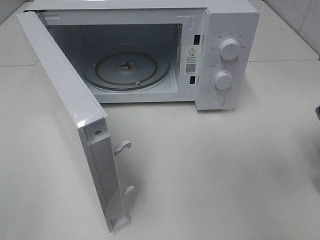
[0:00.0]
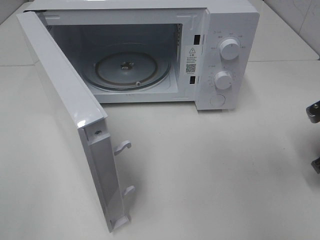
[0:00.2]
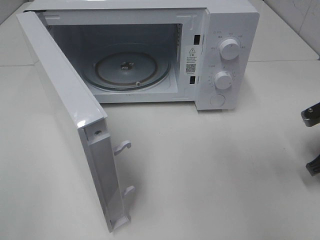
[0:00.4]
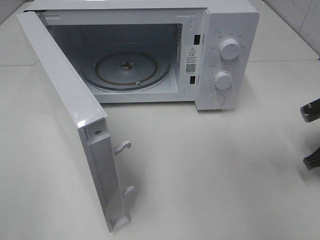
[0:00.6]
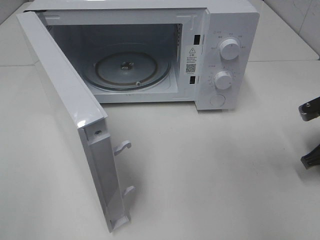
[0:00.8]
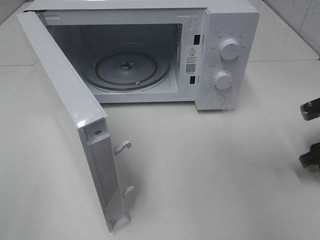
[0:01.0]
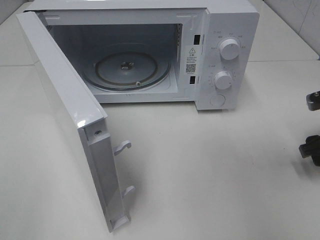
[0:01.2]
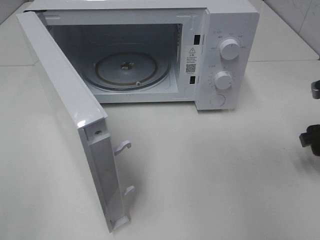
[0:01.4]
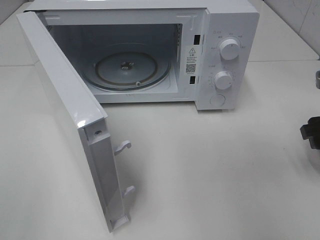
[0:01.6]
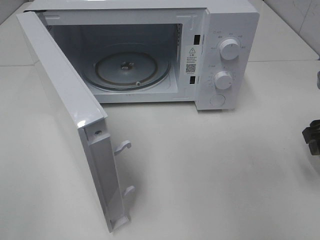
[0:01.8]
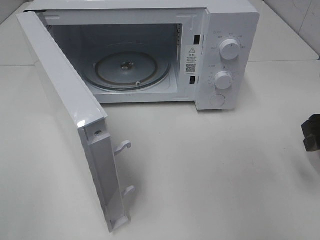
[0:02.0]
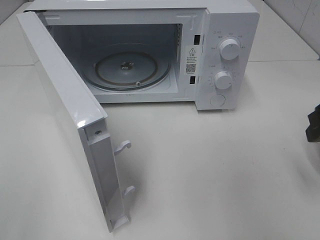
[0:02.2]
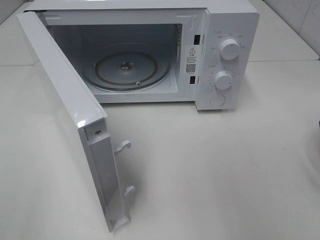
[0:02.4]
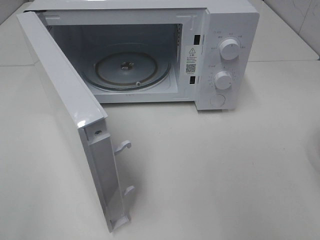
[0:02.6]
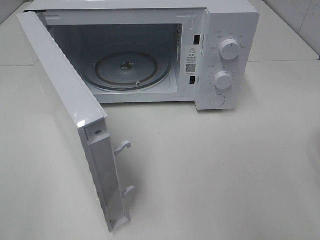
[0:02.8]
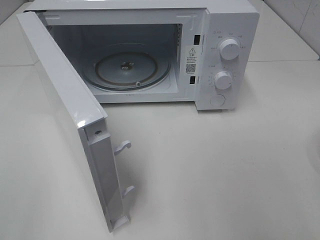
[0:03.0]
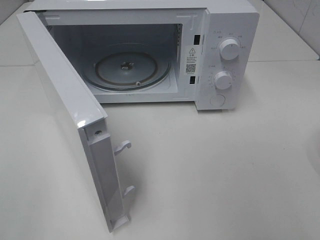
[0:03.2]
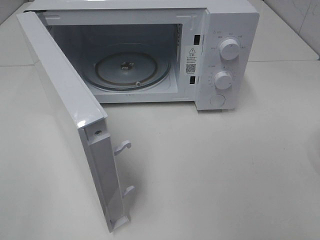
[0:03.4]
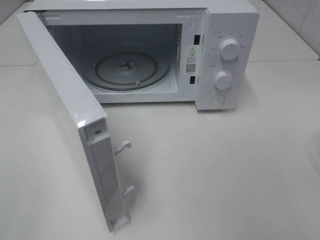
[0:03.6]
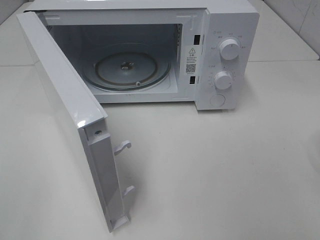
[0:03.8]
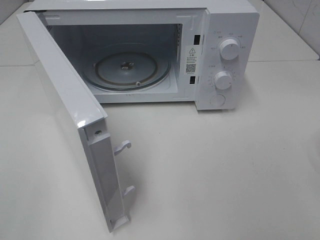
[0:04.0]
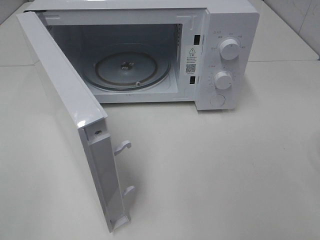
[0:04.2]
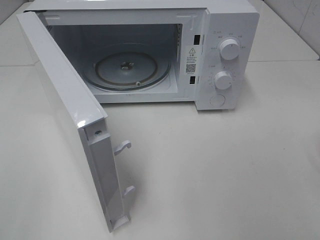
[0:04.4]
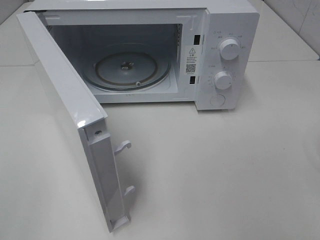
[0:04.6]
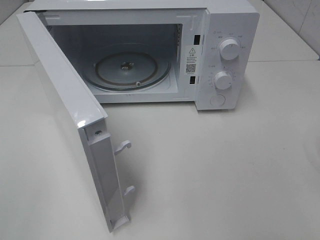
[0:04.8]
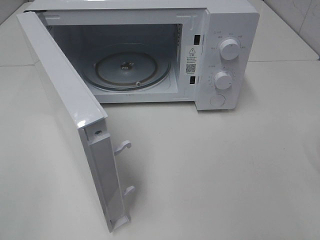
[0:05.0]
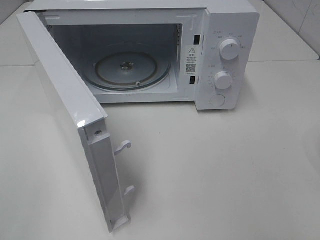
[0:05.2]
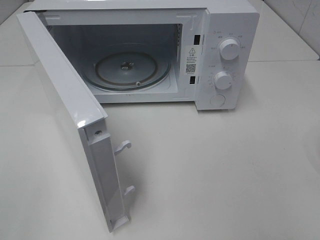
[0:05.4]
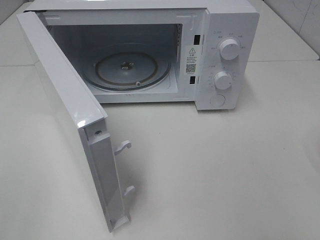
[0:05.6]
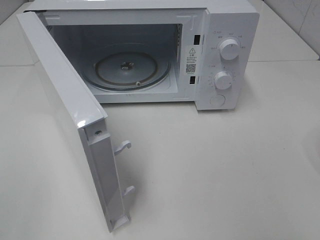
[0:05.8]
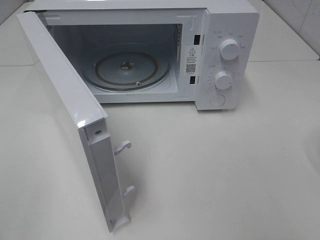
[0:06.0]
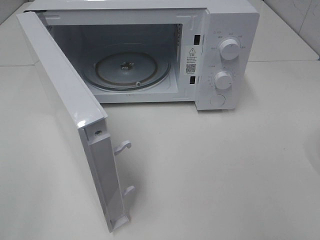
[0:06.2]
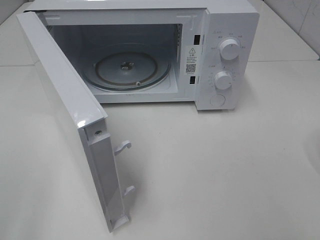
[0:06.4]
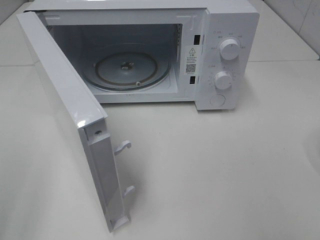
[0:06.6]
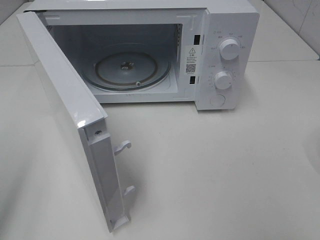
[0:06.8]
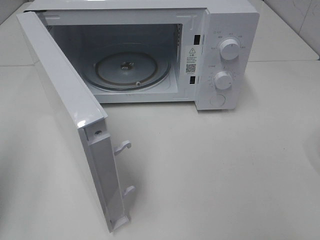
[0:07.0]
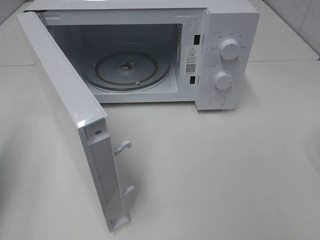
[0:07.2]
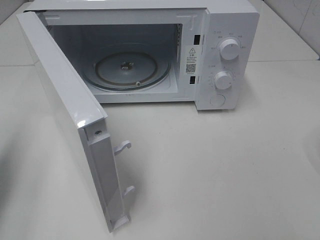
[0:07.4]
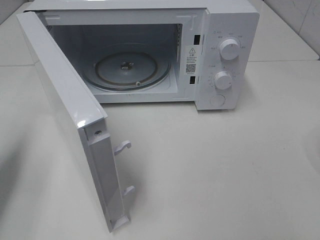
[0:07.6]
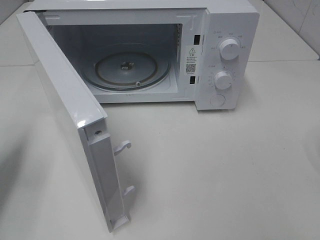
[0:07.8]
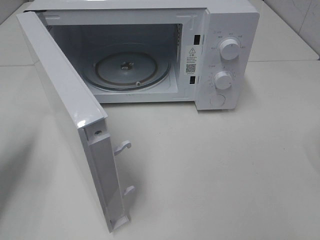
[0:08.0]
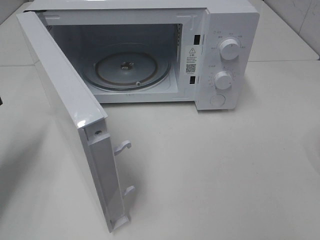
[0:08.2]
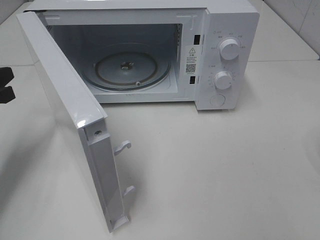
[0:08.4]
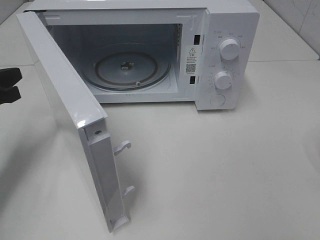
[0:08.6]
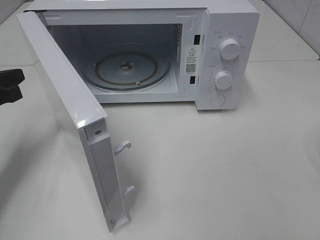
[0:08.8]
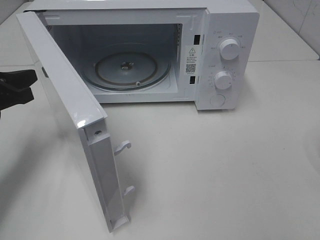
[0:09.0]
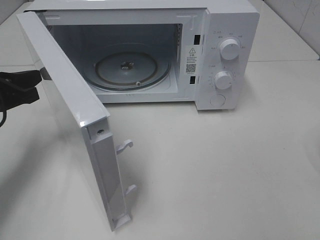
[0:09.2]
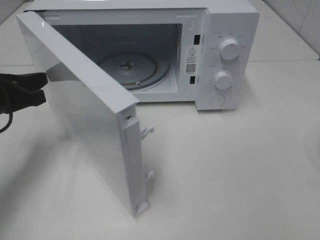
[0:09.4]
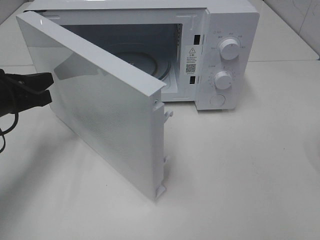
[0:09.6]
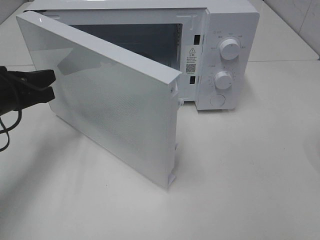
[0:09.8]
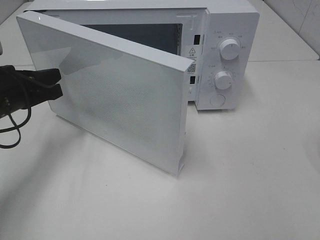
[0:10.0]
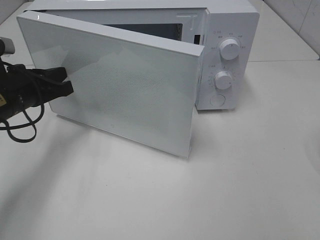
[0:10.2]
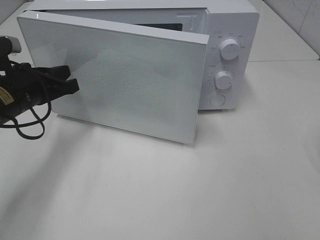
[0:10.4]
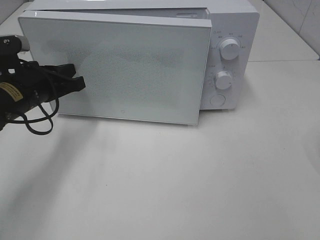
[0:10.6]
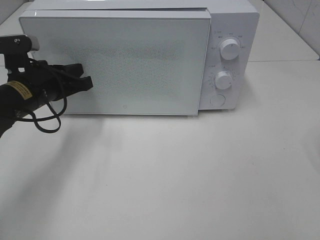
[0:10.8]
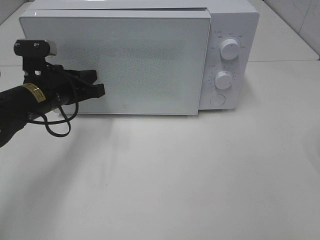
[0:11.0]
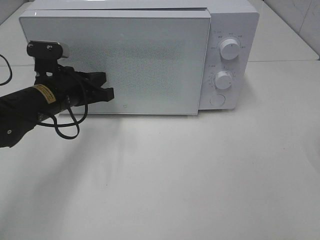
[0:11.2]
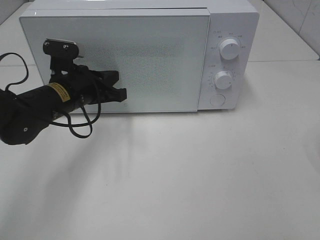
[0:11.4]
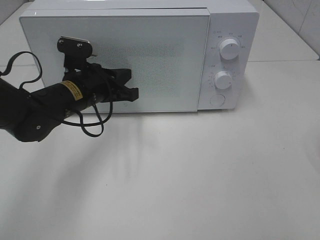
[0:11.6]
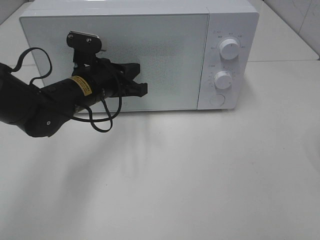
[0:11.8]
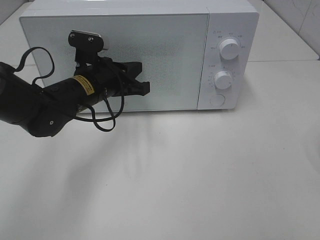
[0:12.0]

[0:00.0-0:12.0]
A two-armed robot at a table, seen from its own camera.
Task of the whole recording: Heat the burger.
0:00.0 to 0:01.6: The right gripper opens.
0:01.6 to 0:03.0: The right gripper moves backward and upward, roughly 20 cm.
0:06.0 to 0:07.6: The left gripper is displaced forward by about 20 cm, and closes up.
0:07.6 to 0:09.0: The left gripper heads forward and downward, covering about 10 cm.
0:09.0 to 0:10.4: The left gripper travels to the right by approximately 5 cm.
0:10.4 to 0:12.0: The left gripper heads to the right, covering some 10 cm.

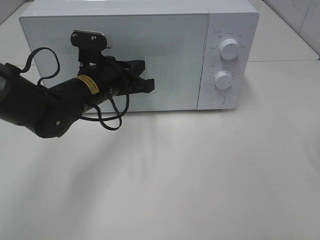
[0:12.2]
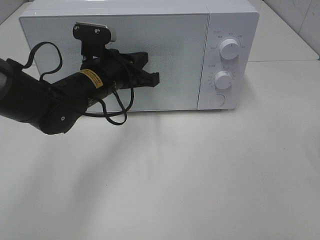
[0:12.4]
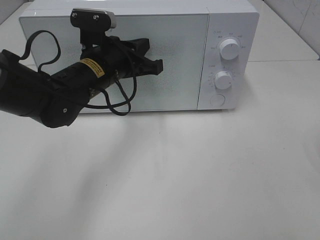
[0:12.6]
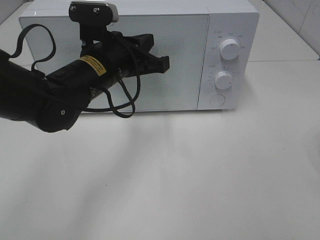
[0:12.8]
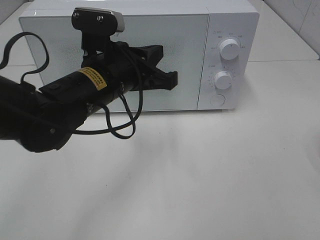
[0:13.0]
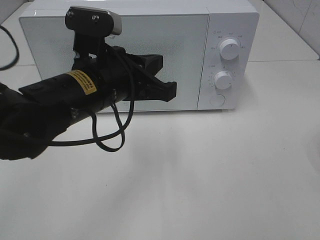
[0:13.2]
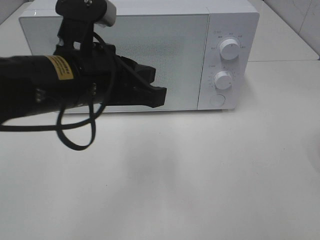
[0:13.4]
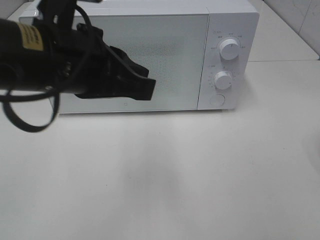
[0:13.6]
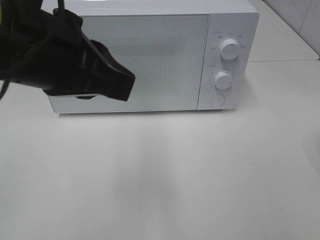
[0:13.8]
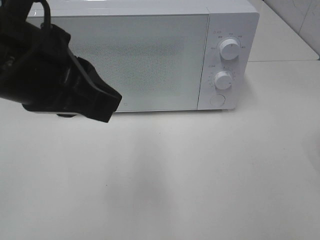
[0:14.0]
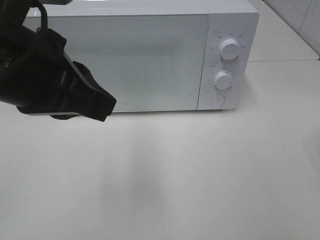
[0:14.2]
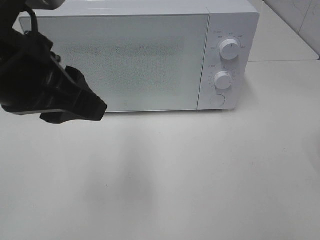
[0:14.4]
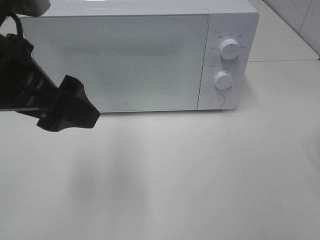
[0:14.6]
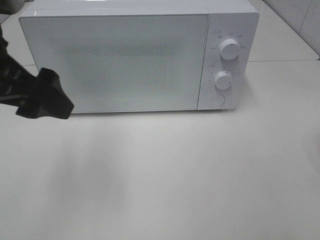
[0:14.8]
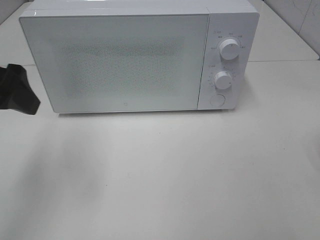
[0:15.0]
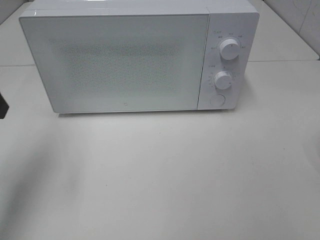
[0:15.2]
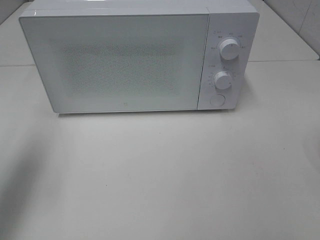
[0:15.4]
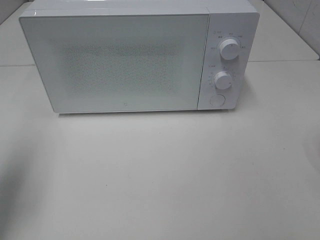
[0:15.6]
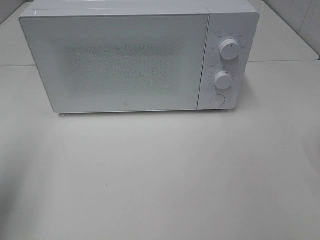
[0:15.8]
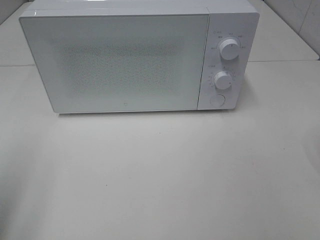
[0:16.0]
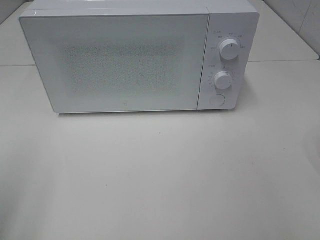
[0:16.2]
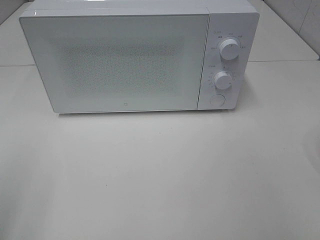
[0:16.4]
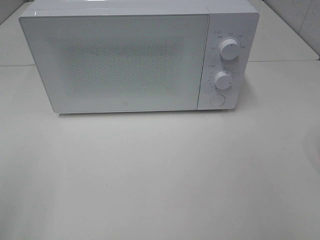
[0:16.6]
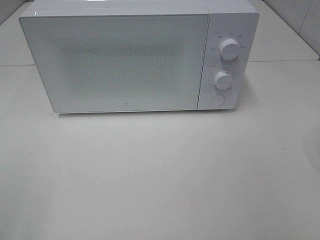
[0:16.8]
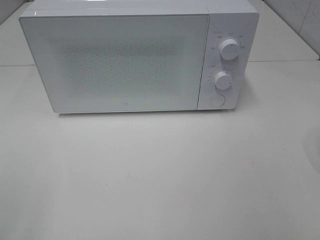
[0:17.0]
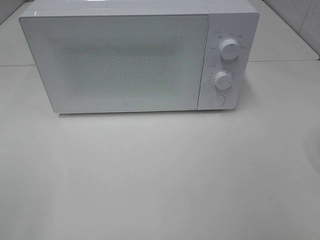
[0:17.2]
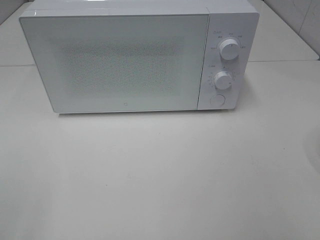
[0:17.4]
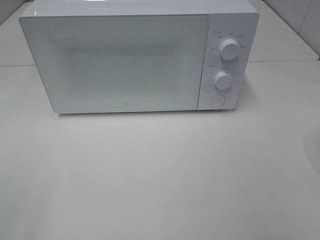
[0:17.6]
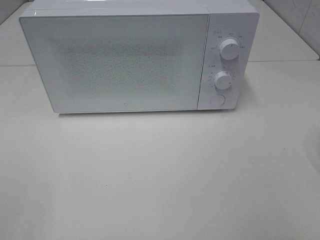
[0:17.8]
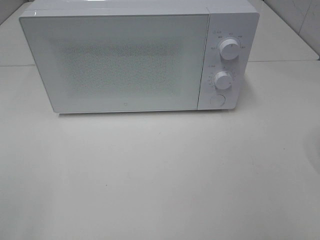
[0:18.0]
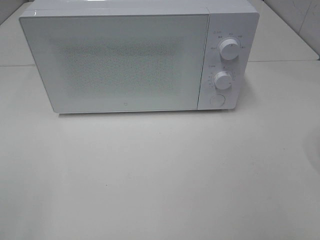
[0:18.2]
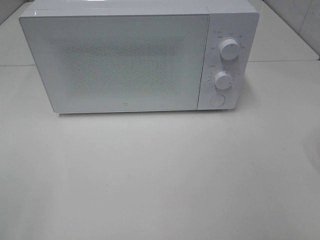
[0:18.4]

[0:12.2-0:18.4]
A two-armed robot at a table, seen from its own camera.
Task of the whole recording: Heat the burger.
0:12.2 to 0:13.8: The left gripper travels upward and backward by roughly 25 cm.
0:13.8 to 0:15.4: The left gripper heads to the left, covering about 20 cm, and opens its fingers.
0:15.4 to 0:16.8: The left gripper is displaced backward by roughly 20 cm.

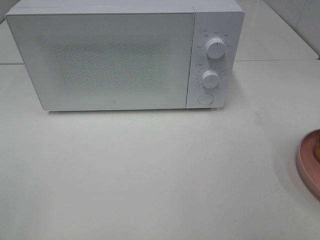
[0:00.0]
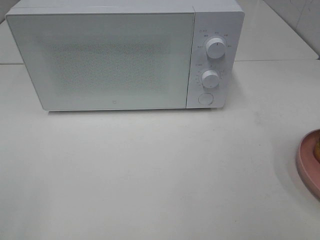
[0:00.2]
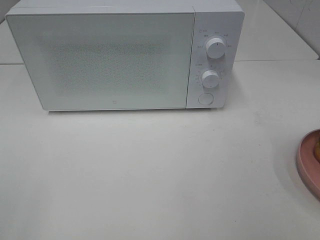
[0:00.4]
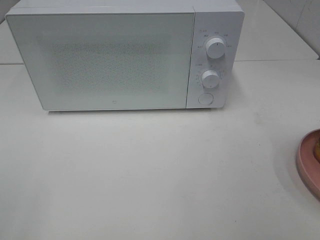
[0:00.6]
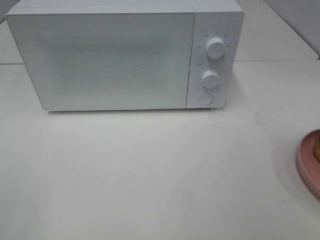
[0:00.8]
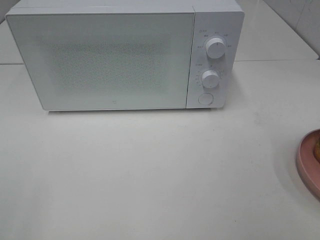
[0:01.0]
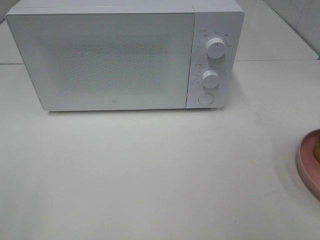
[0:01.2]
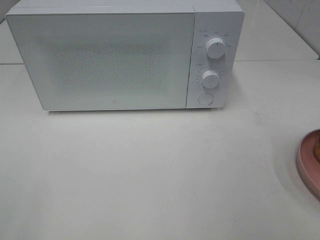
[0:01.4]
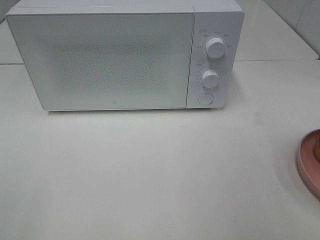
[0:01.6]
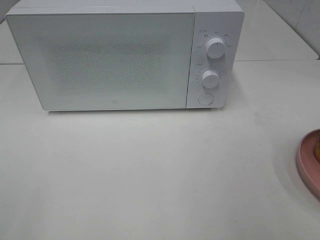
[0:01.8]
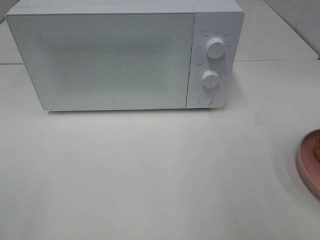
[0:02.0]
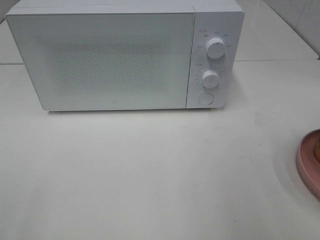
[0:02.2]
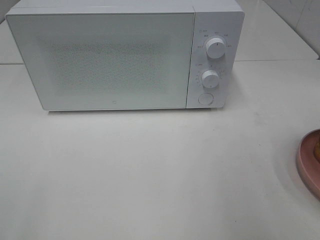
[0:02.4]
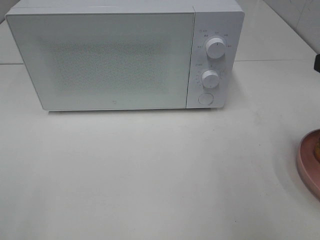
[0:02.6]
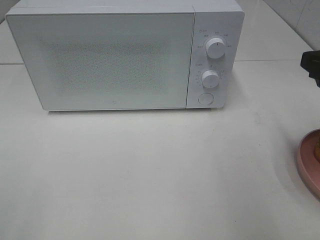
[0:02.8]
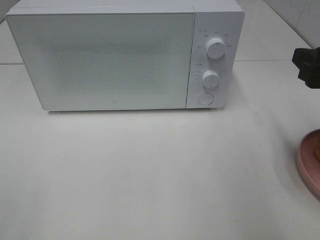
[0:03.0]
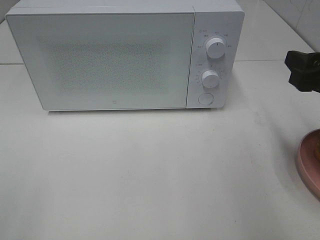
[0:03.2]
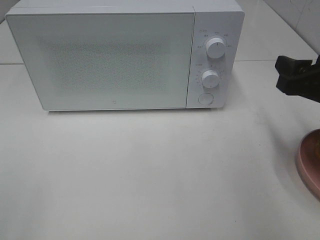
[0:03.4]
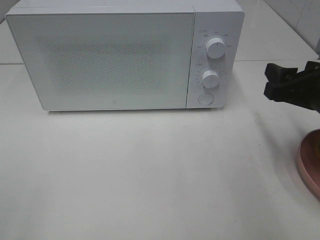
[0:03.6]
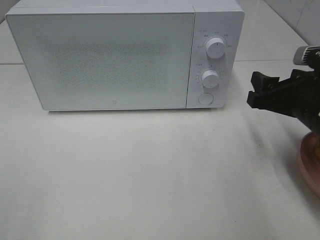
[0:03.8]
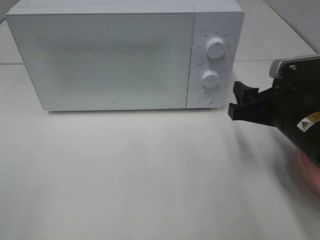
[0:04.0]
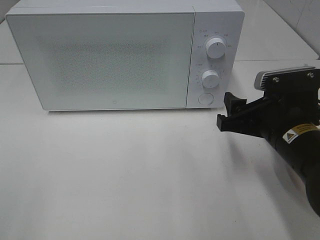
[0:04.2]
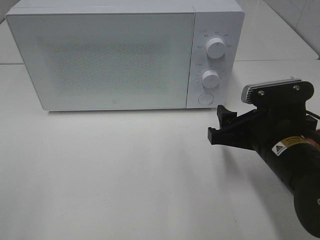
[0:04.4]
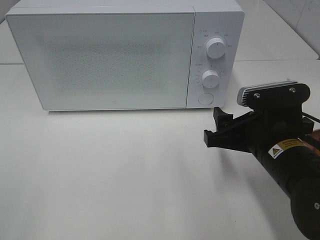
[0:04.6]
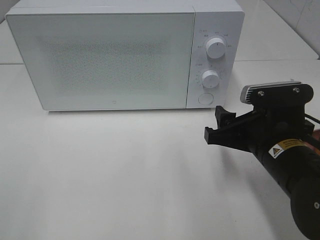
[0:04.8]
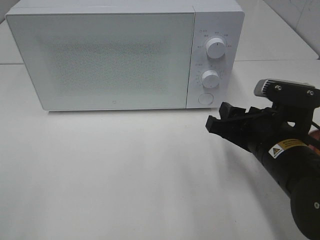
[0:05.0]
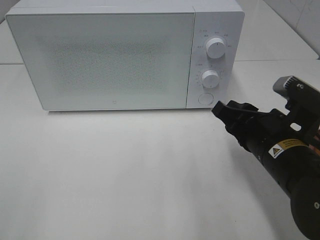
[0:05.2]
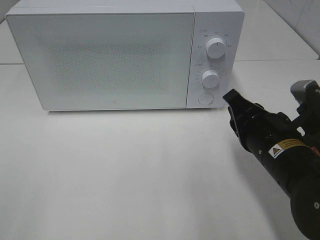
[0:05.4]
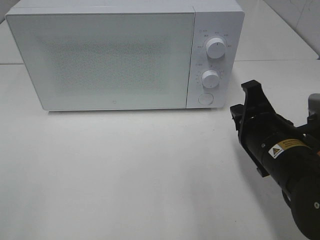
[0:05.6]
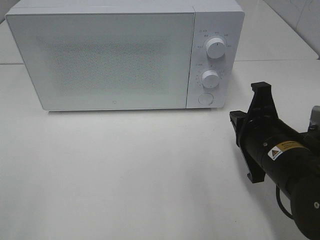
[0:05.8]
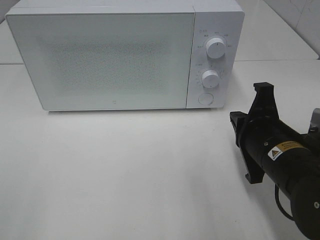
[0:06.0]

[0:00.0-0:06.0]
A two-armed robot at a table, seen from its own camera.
Task of the whole recording: Heat the burger.
0:01.6 to 0:03.0: The right gripper is displaced forward and downward by roughly 15 cm.
0:03.0 to 0:04.4: The right gripper travels downward and to the left by about 15 cm.
0:04.4 to 0:06.0: The right gripper closes.
